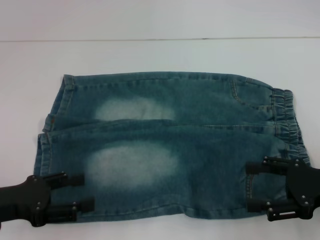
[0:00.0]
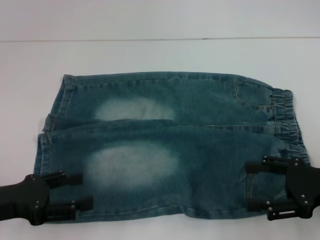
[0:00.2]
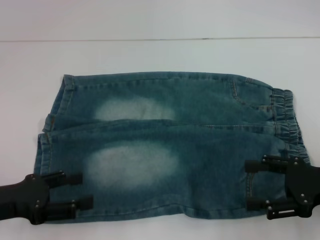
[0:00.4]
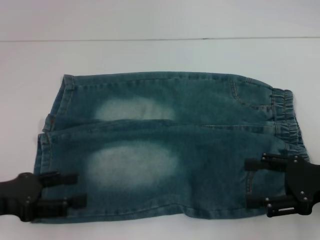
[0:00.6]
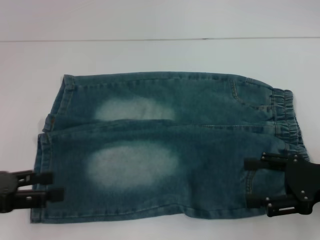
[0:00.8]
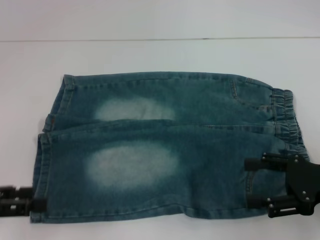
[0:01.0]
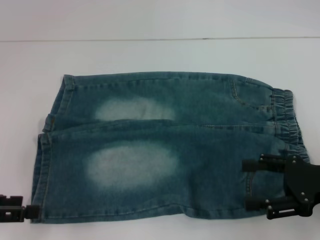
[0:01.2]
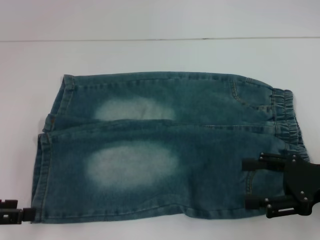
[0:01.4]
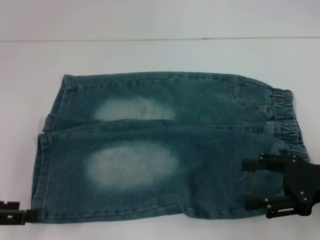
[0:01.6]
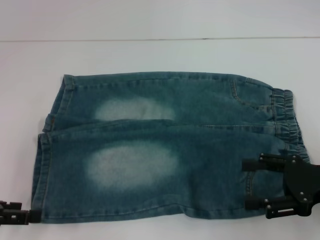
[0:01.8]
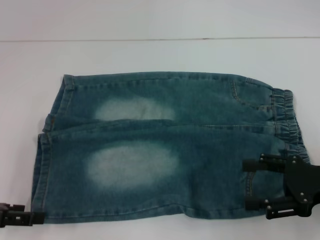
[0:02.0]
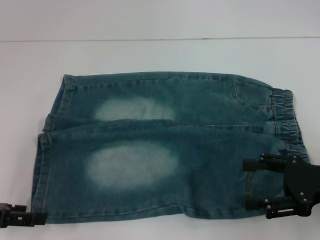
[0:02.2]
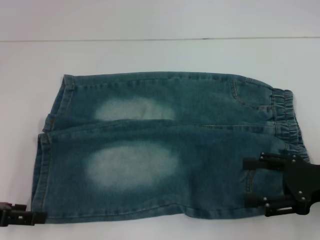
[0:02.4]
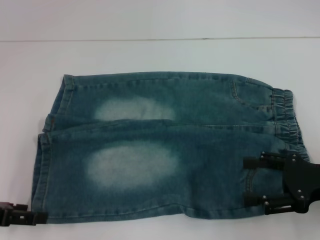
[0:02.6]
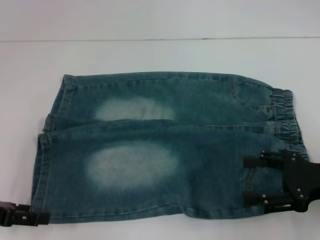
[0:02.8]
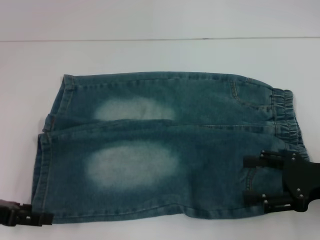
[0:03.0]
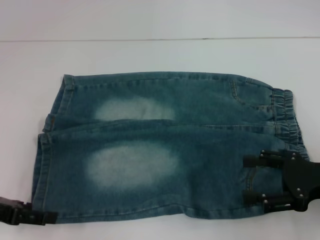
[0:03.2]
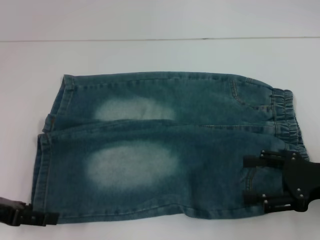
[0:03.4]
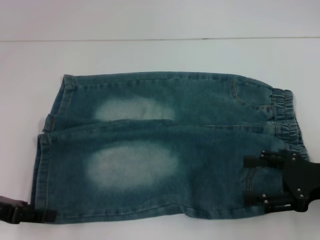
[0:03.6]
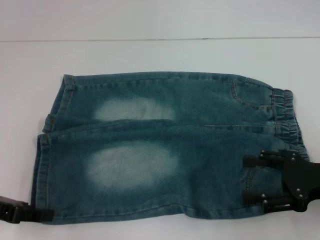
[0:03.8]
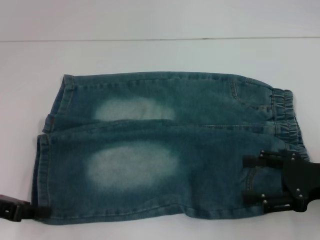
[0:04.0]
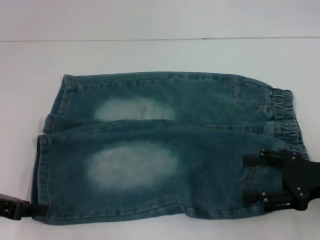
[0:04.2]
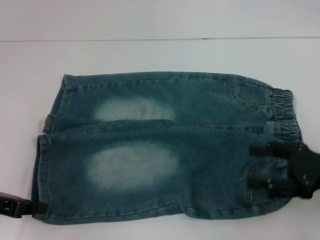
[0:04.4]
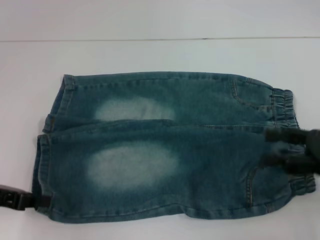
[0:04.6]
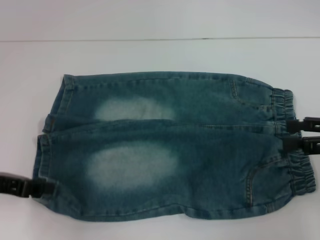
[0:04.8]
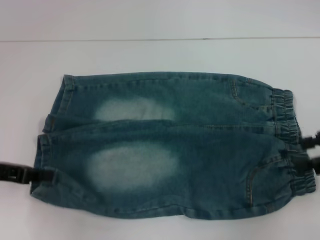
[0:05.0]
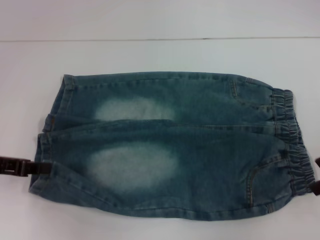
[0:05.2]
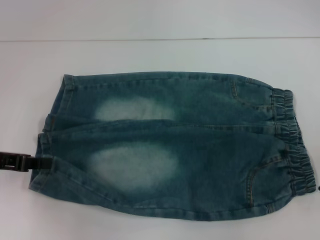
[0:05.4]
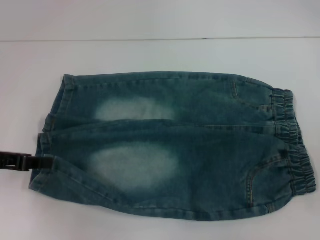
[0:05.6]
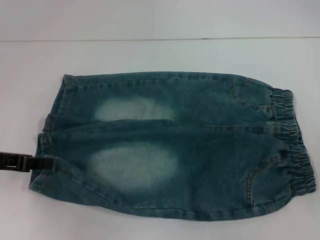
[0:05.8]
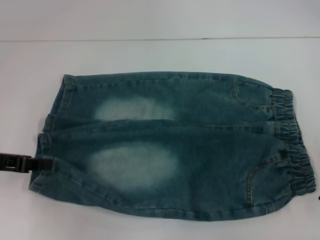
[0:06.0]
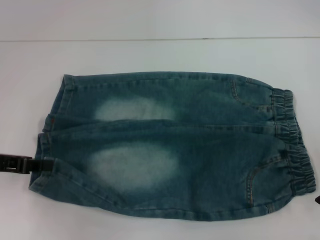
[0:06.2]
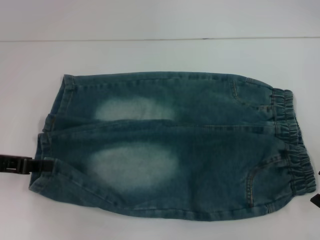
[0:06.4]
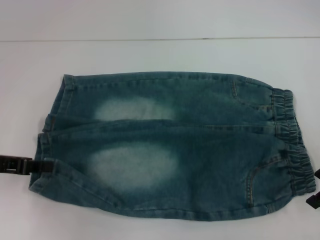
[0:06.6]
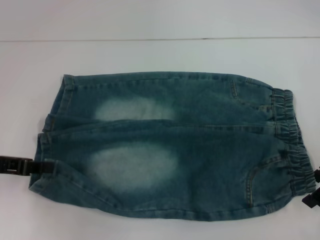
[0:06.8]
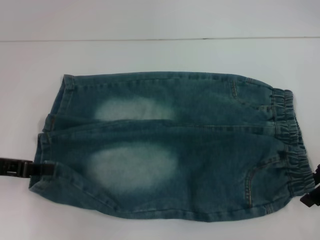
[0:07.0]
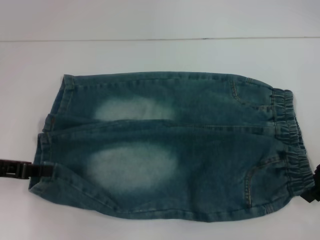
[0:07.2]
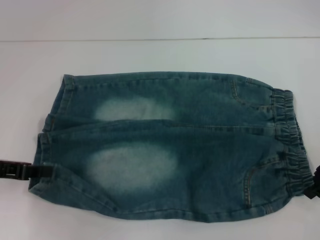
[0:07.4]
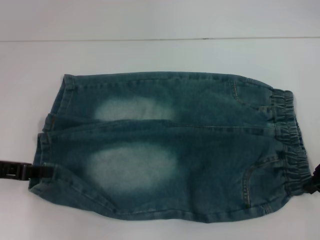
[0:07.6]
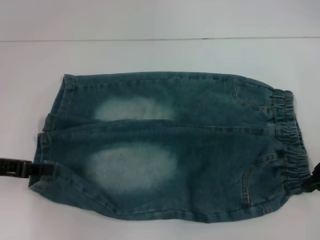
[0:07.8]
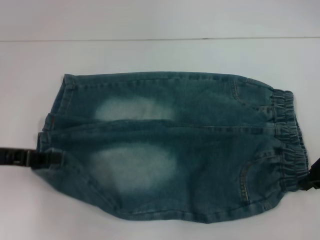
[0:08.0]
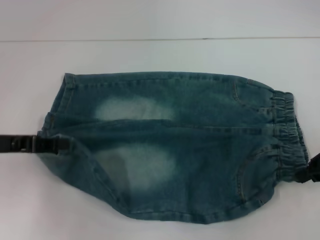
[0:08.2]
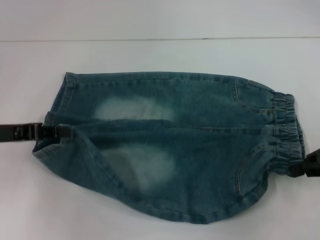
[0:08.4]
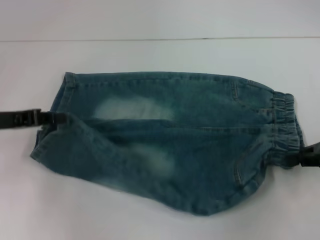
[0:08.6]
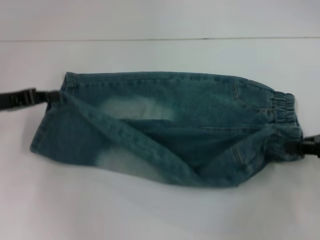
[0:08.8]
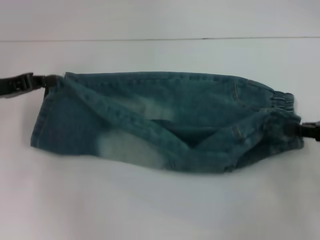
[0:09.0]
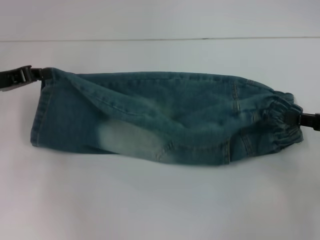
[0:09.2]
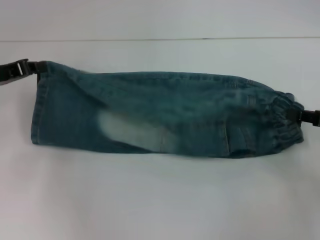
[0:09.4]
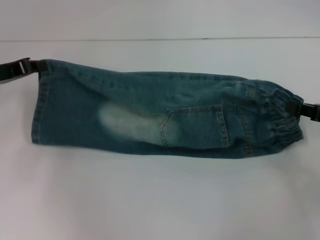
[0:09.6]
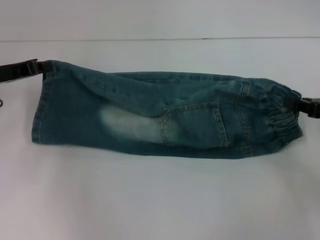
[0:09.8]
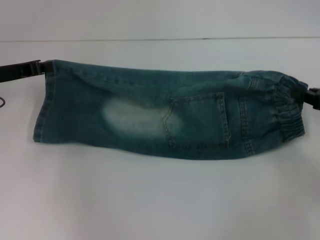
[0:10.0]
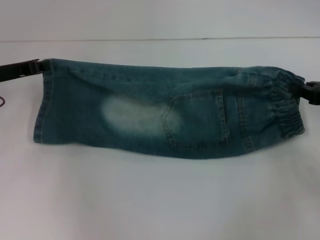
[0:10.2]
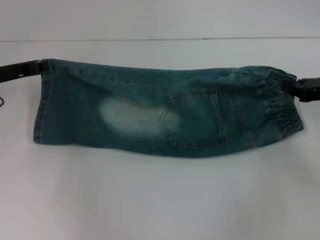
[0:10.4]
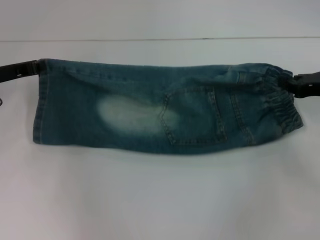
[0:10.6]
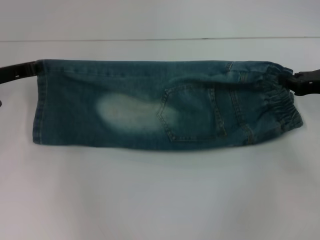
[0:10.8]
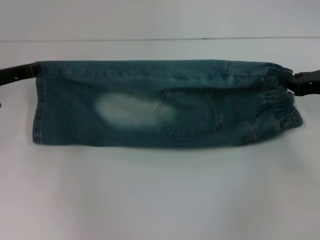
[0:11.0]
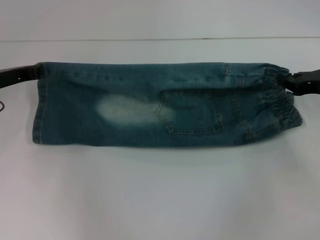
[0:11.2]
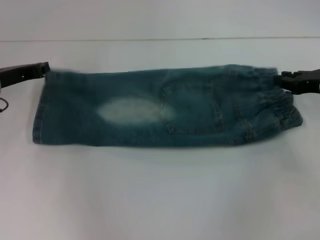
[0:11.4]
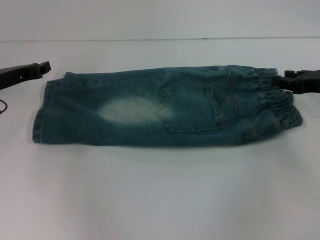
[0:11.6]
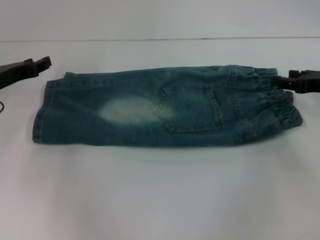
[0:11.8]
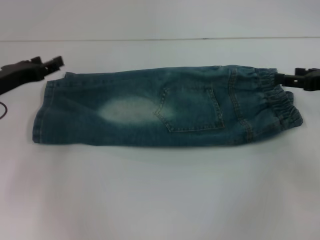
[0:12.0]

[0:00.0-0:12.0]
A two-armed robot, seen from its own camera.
Step, 0:00.0 to 0:04.4: Grab the lower left pant leg with your left hand.
Step, 0:04.6 to 0:07.8: Hold the lower right waistband with your right hand.
Step, 0:08.0 to 0:11.8: Fold upward with your right hand.
0:00.0 to 0:01.6: The left gripper moves to the left, approximately 5 cm.
0:01.6 to 0:03.0: There are only small adjustments of the grippers.
0:03.0 to 0:04.4: The left gripper closes its fingers.
0:04.4 to 0:06.0: The right gripper heads forward and upward, covering about 10 cm.
0:06.0 to 0:07.6: The right gripper closes up.
0:07.6 to 0:09.0: The right gripper heads to the right, covering approximately 5 cm; the left gripper moves forward, about 5 cm.
0:09.0 to 0:10.4: The right gripper travels forward by about 5 cm.
0:10.4 to 0:12.0: The right gripper opens its fingers. Meanwhile the left gripper opens.

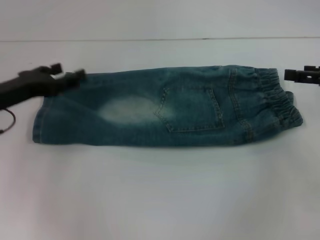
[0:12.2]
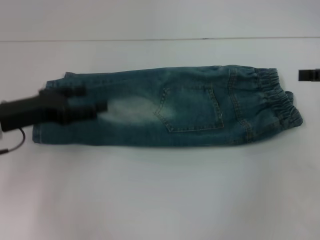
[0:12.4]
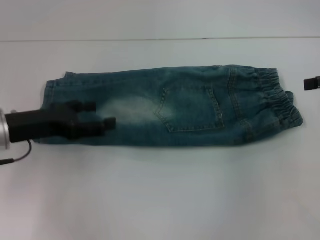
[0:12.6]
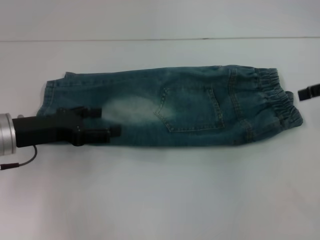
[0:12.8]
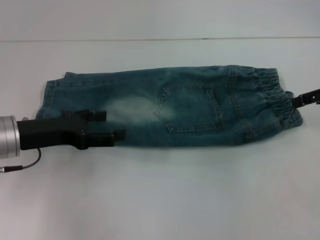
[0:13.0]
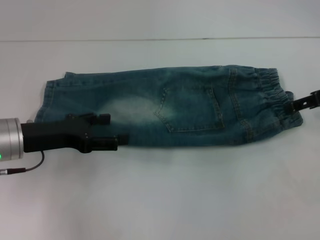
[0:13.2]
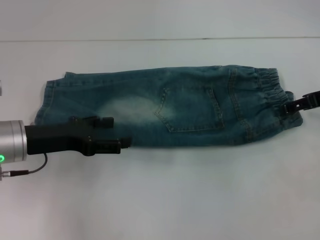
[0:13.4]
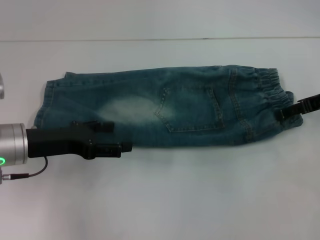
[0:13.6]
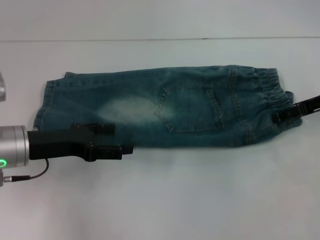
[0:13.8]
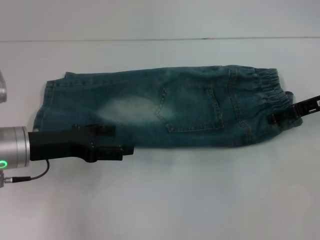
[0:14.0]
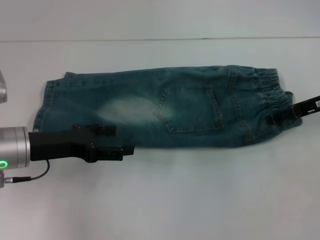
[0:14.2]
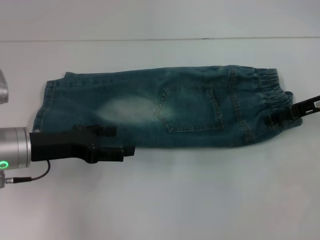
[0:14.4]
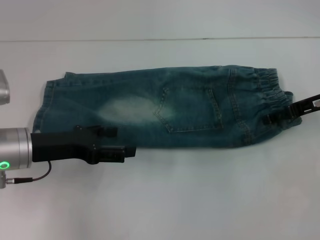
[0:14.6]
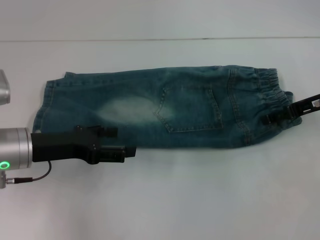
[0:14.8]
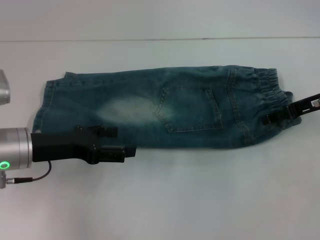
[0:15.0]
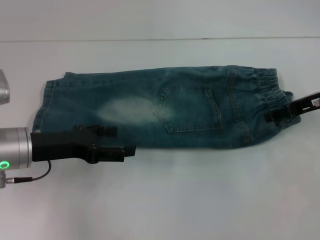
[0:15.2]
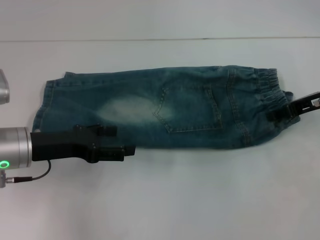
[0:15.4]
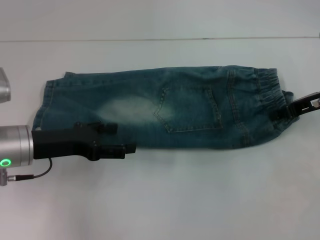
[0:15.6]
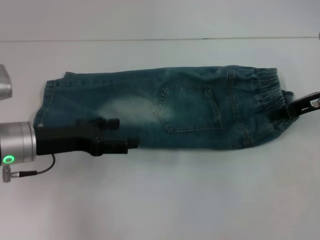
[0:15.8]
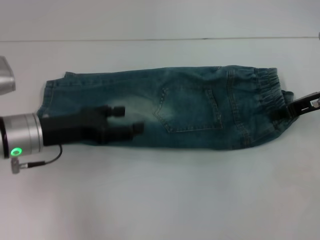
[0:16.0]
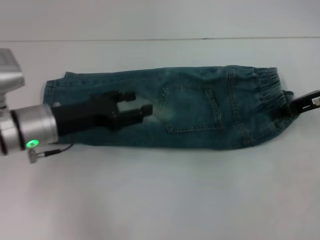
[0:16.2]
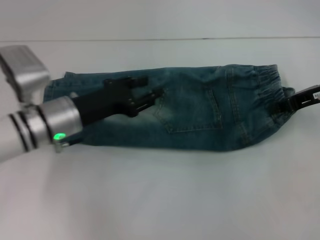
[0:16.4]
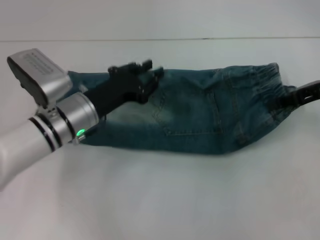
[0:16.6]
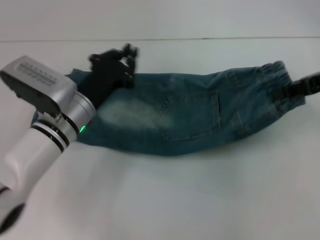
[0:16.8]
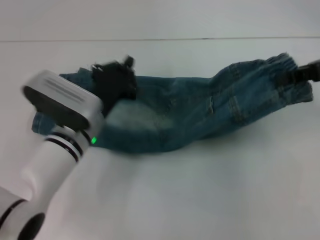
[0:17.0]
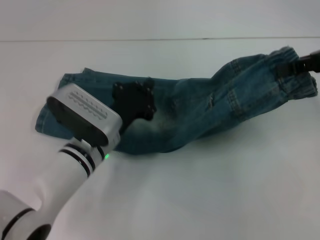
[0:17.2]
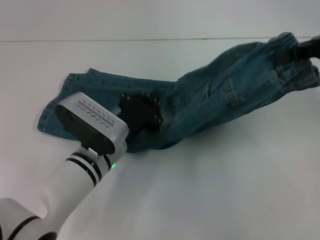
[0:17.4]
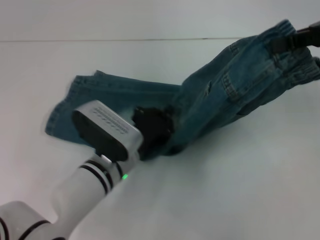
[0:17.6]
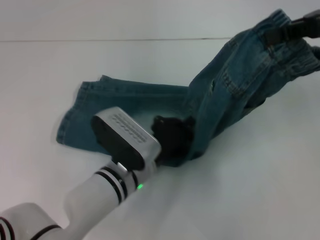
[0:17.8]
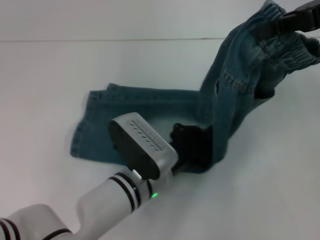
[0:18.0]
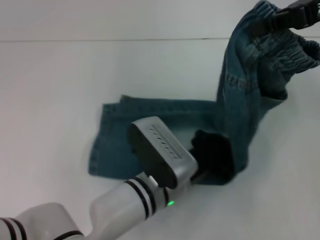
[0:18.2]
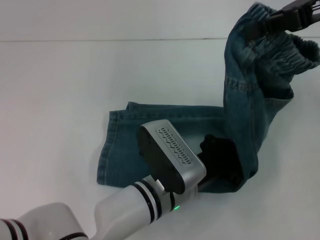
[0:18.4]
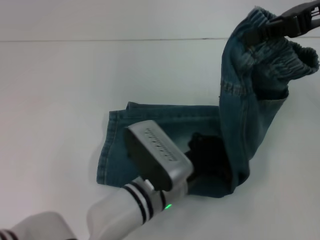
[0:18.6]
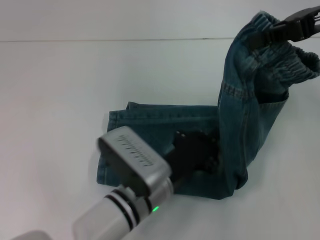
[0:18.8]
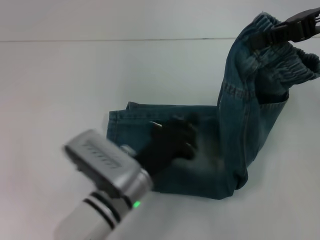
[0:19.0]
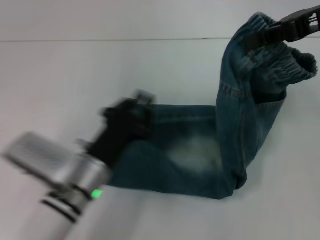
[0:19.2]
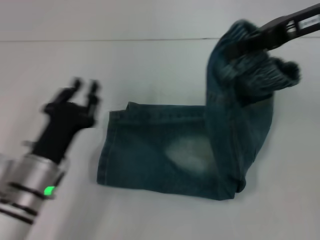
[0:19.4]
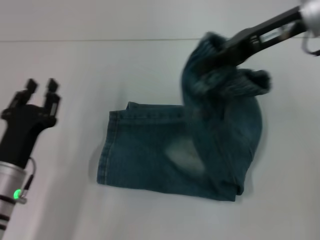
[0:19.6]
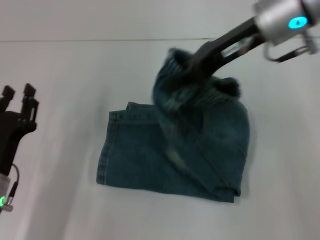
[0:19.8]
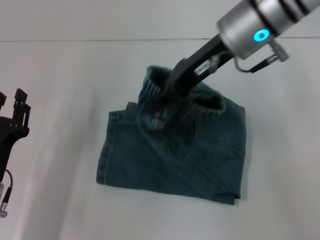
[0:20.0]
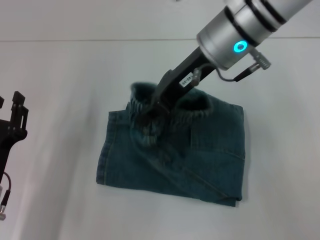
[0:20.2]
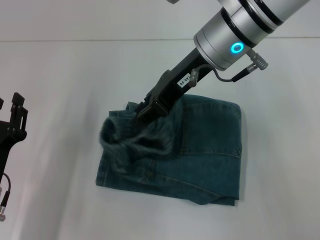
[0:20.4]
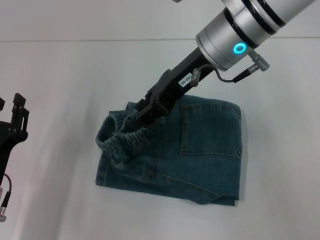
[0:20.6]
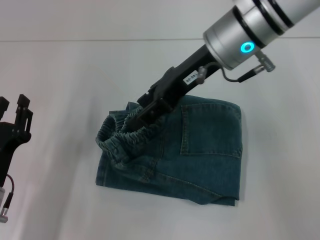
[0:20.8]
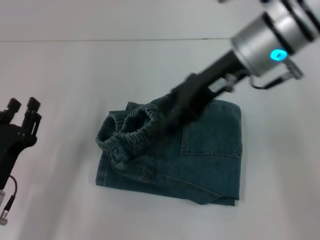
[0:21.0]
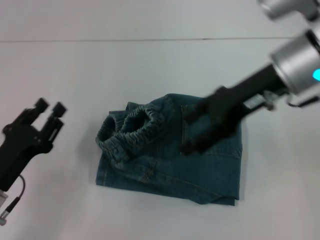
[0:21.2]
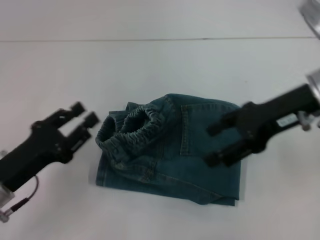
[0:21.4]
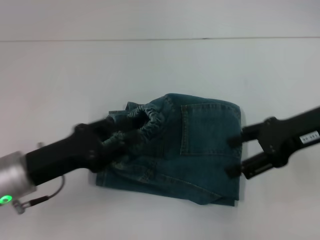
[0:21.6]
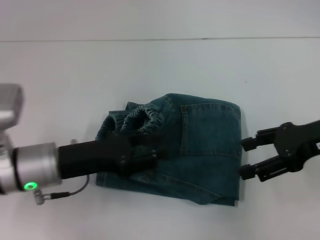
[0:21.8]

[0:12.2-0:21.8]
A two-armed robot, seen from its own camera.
Step, 0:12.2 to 0:15.8: Grab the waistband with your right hand.
Step, 0:16.0 to 0:18.6: Press the middle of the pants with your left hand.
Step, 0:19.0 to 0:20.6: Fold to the left with your right hand.
0:12.2 to 0:13.8: The right gripper ends up about 5 cm from where it was. Meanwhile the left gripper changes place by about 5 cm.
0:13.8 to 0:15.4: The grippers stay close to where they were, moving slightly.
0:15.4 to 0:17.0: The right gripper is displaced upward by roughly 10 cm, and closes its fingers. The left gripper is displaced to the right by approximately 10 cm, and closes.
0:17.0 to 0:18.6: The right gripper moves upward and to the left, roughly 10 cm. The left gripper travels to the right and backward by about 15 cm.
0:18.6 to 0:20.2: Both grippers travel together to the left, about 20 cm. The left gripper opens.
0:20.2 to 0:21.8: The left gripper heads upward, forward and to the right, covering some 10 cm, while the right gripper travels to the right and backward by approximately 20 cm, and opens.
